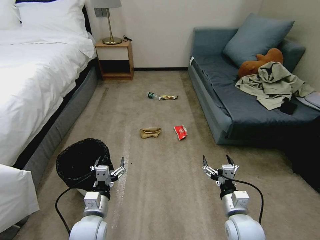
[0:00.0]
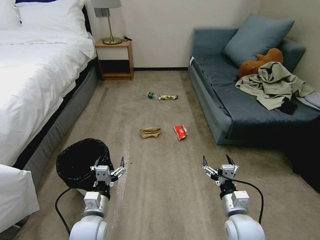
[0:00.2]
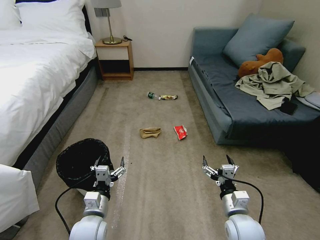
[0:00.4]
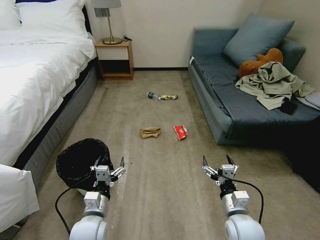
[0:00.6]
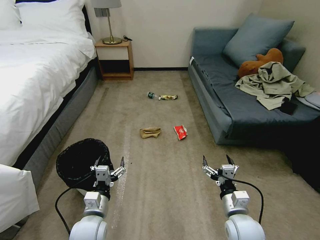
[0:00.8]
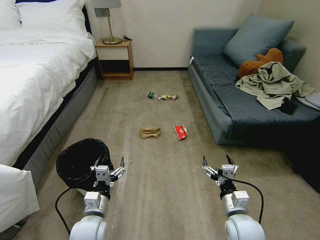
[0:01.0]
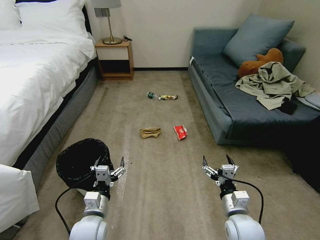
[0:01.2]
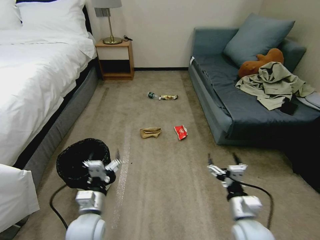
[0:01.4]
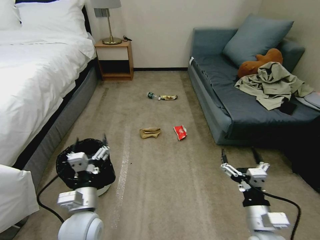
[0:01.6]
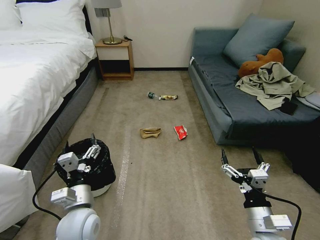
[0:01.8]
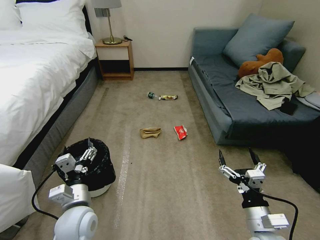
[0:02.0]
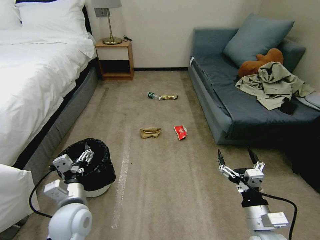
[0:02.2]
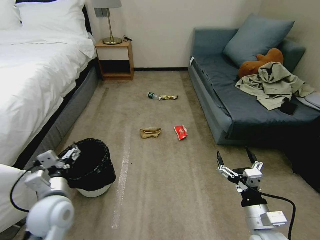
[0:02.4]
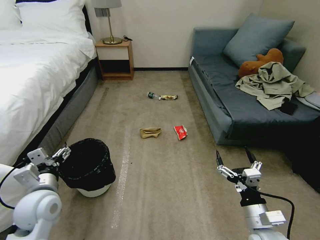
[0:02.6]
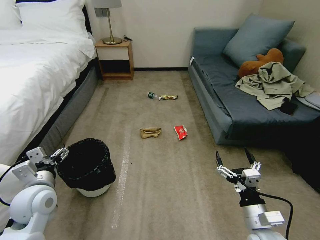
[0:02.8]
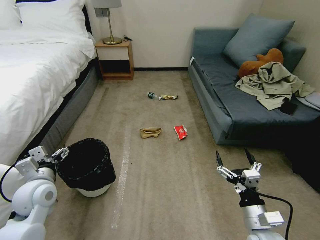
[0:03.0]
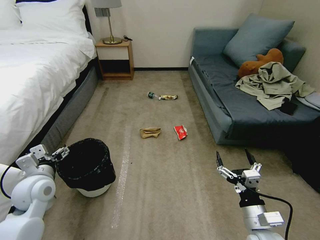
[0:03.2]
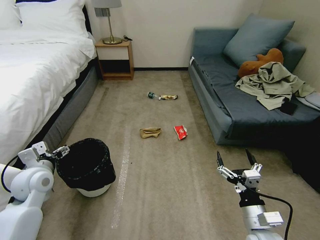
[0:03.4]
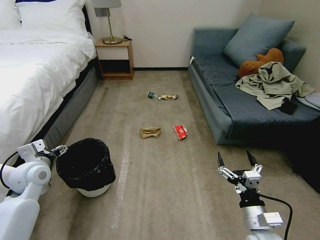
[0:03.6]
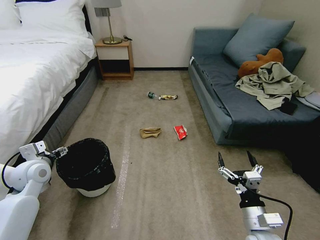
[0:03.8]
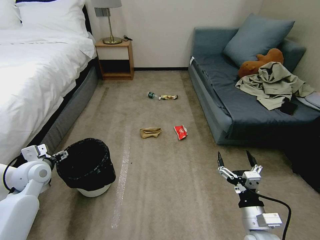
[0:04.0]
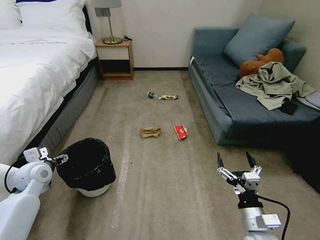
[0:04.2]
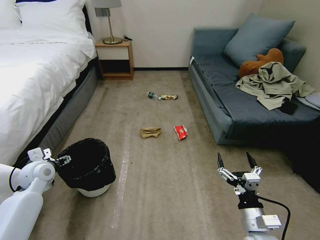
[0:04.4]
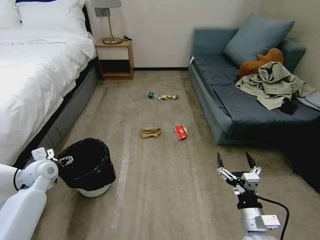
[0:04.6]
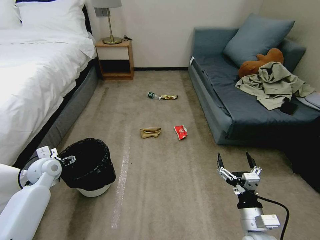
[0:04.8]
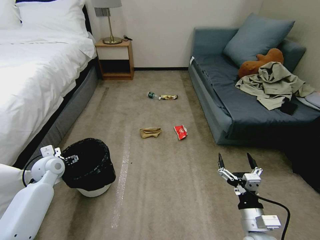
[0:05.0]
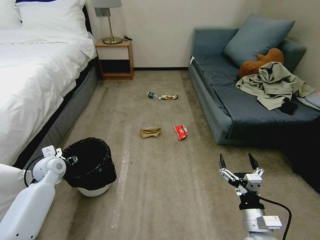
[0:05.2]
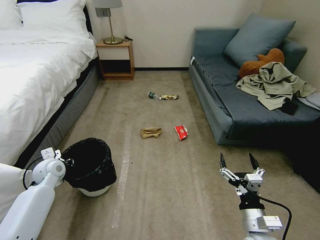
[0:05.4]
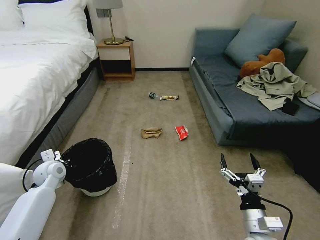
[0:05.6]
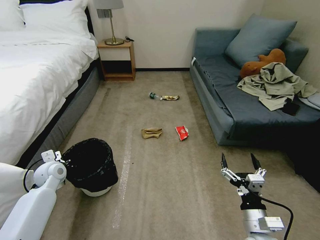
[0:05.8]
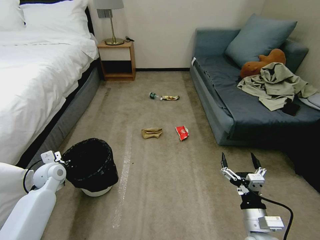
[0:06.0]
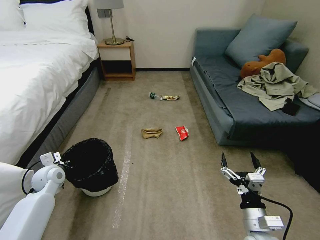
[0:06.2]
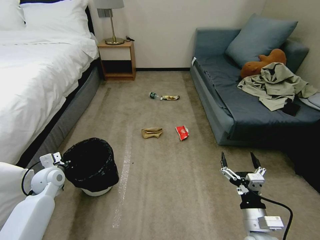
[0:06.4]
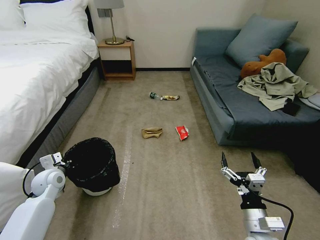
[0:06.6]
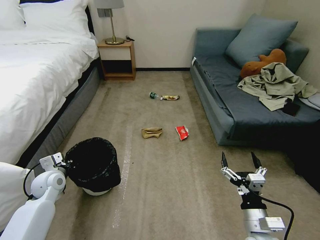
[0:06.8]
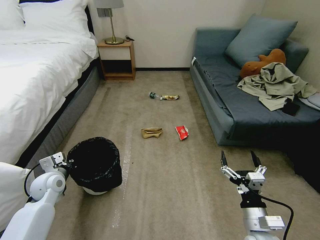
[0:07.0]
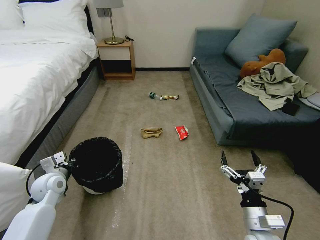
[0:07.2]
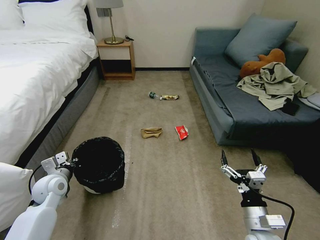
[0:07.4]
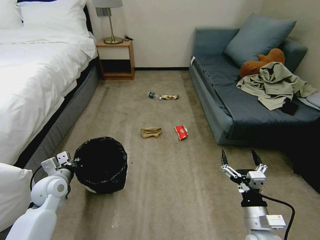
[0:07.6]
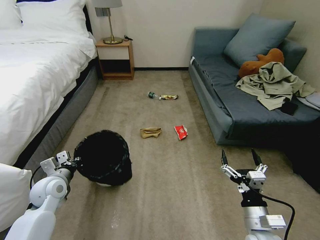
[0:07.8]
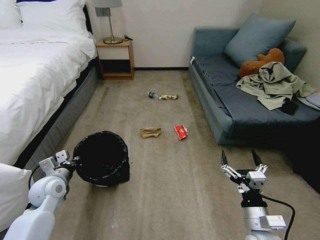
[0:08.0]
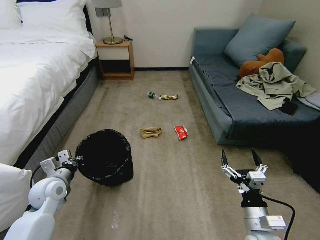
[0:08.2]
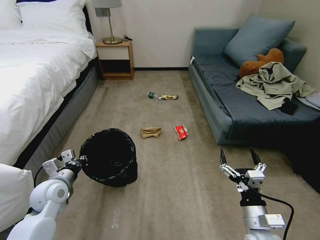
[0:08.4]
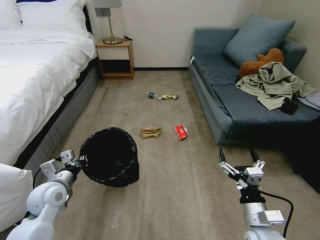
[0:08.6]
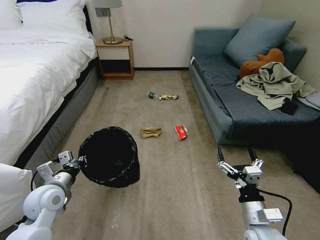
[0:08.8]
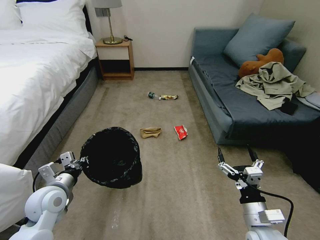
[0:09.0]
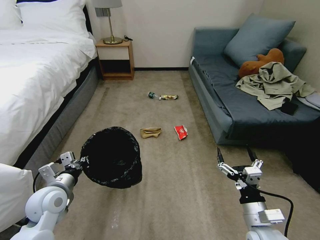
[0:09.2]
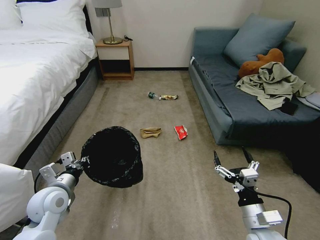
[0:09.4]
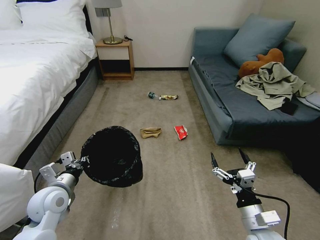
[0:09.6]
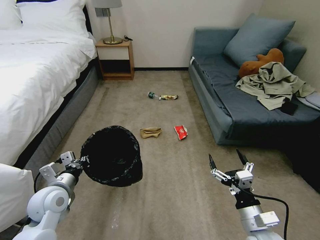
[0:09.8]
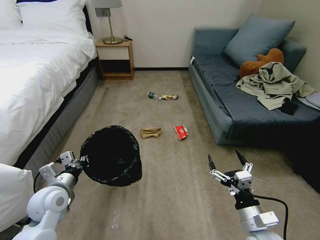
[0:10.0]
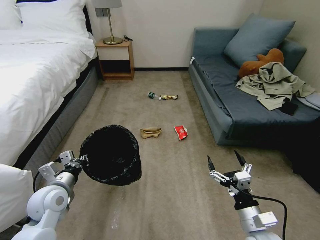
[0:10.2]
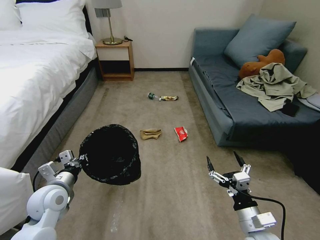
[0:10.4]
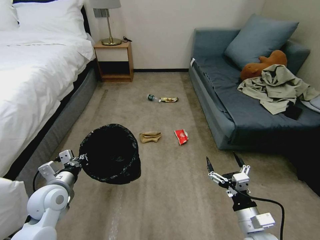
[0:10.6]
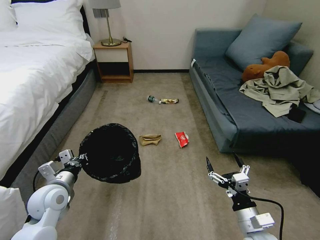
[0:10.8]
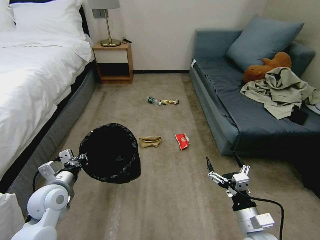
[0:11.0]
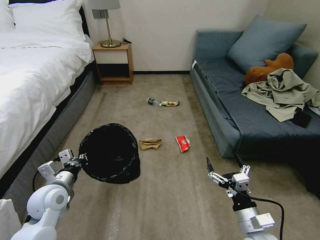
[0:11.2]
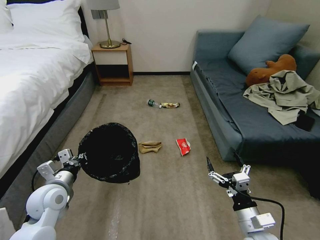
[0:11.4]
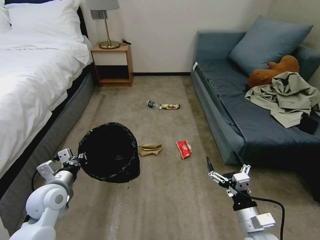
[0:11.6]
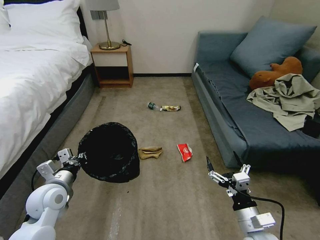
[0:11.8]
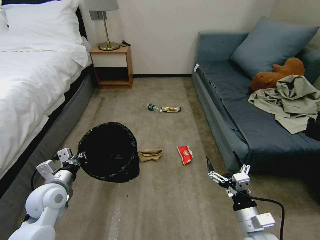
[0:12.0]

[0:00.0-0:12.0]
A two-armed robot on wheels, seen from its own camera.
Task of the whole recording: Pick up the trash bin, then pick up the garbage on the floor and place it into the trash bin.
0:01.6 to 0:03.0: The left gripper moves to the left and forward, about 15 cm.
0:03.0 to 0:04.4: The left gripper heads forward and to the left, covering some 10 cm.
0:04.4 to 0:06.0: The left gripper closes its fingers.
0:06.0 to 0:07.6: The left gripper shifts some 5 cm backward.
0:07.6 to 0:09.0: The left gripper shifts roughly 5 cm backward.
0:09.0 to 0:10.4: The grippers move only a little.

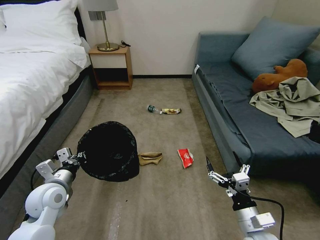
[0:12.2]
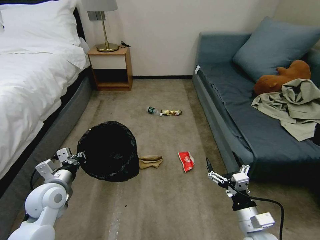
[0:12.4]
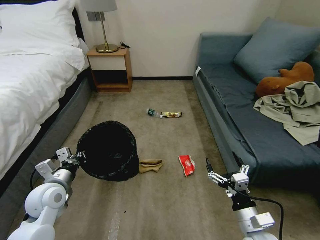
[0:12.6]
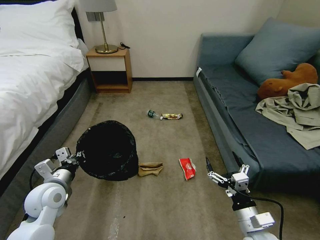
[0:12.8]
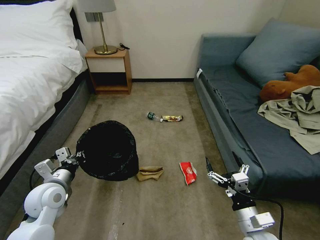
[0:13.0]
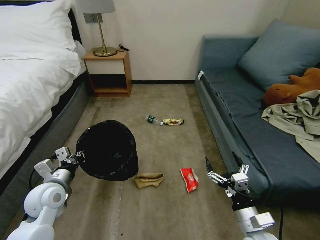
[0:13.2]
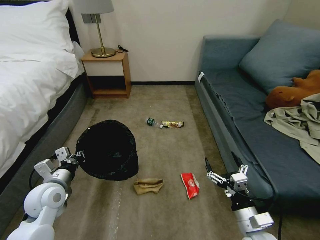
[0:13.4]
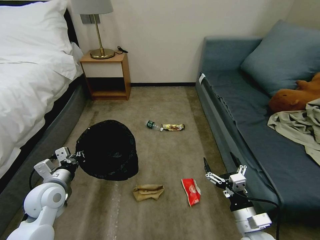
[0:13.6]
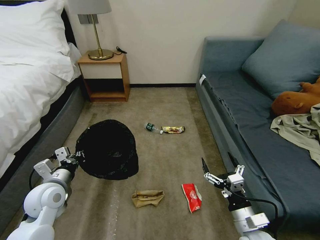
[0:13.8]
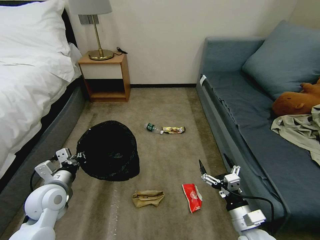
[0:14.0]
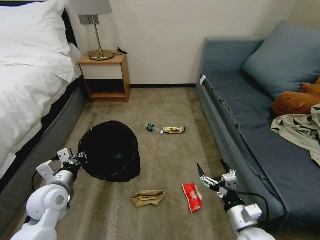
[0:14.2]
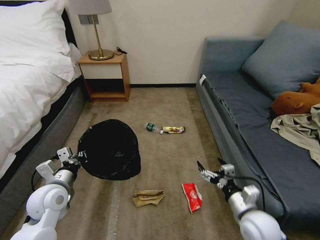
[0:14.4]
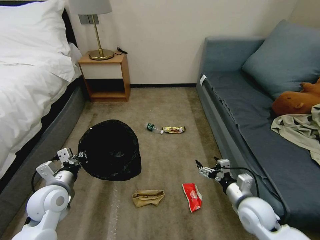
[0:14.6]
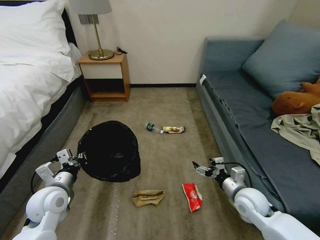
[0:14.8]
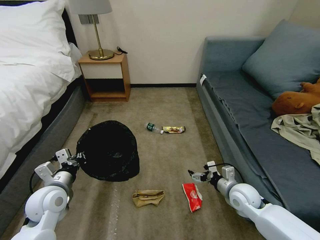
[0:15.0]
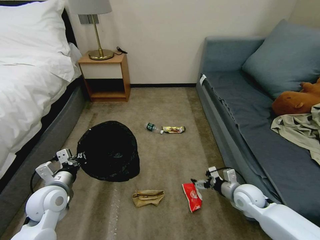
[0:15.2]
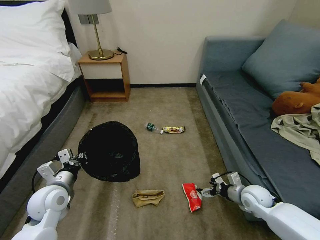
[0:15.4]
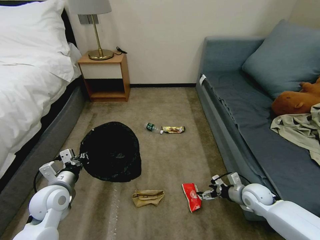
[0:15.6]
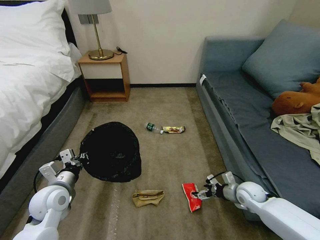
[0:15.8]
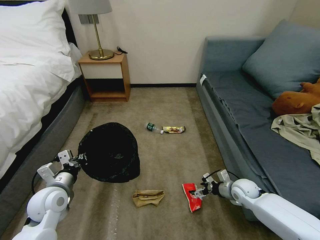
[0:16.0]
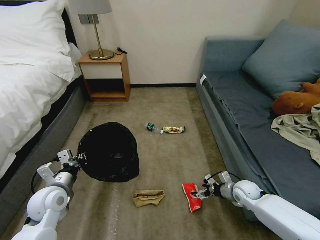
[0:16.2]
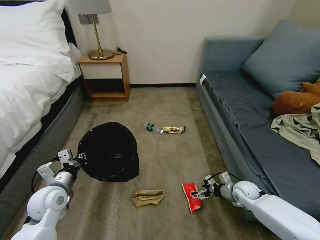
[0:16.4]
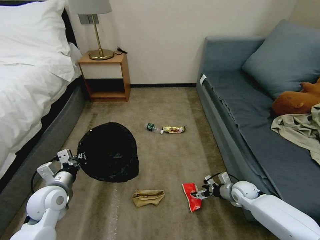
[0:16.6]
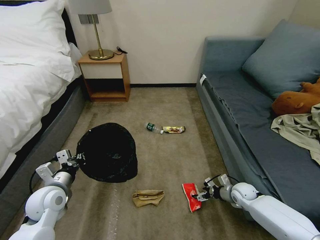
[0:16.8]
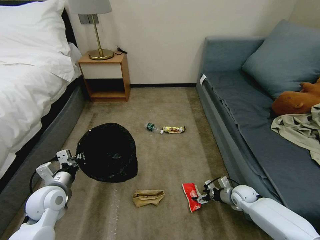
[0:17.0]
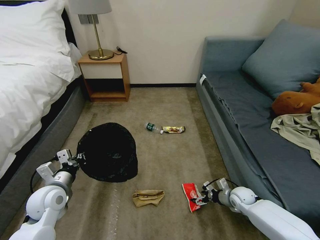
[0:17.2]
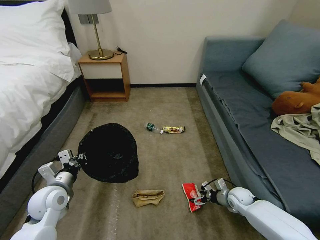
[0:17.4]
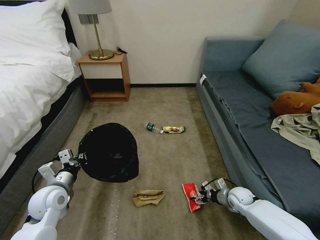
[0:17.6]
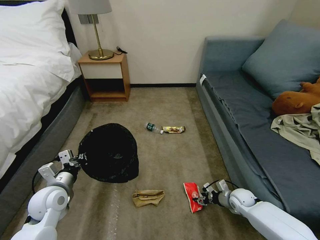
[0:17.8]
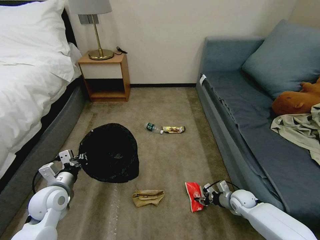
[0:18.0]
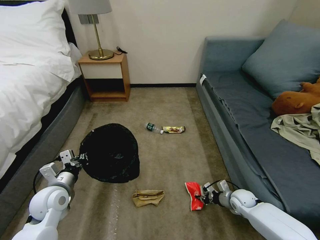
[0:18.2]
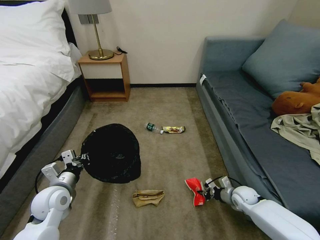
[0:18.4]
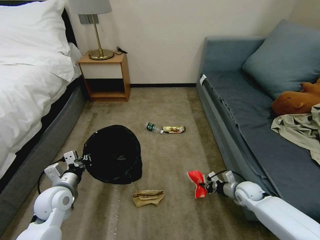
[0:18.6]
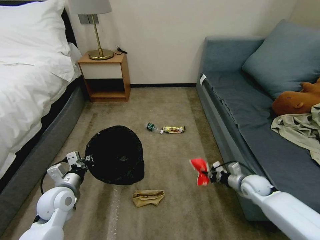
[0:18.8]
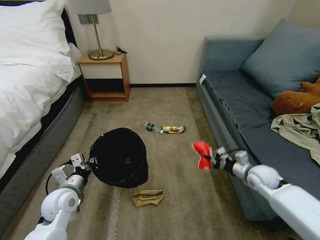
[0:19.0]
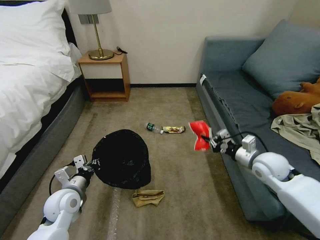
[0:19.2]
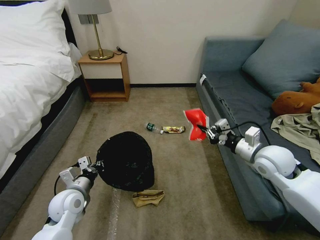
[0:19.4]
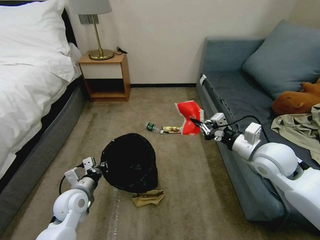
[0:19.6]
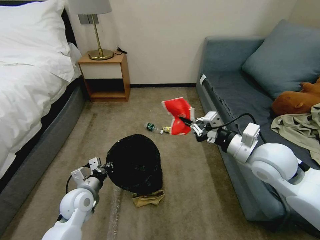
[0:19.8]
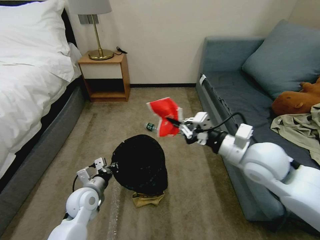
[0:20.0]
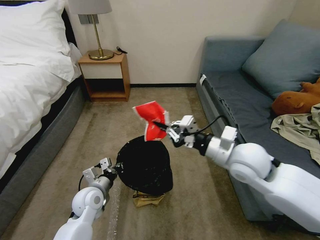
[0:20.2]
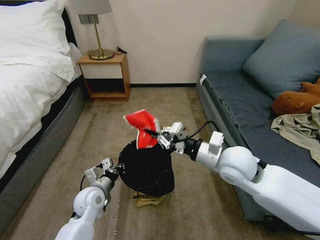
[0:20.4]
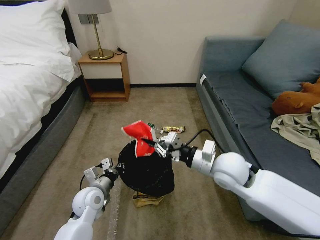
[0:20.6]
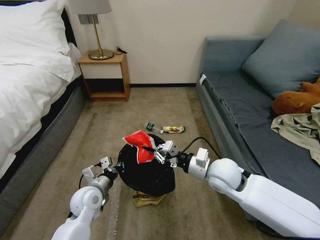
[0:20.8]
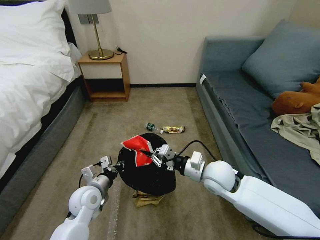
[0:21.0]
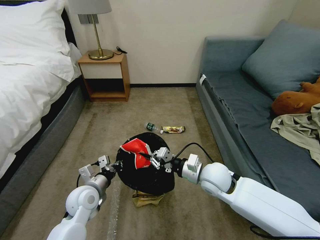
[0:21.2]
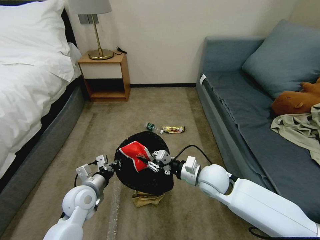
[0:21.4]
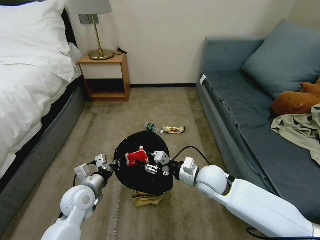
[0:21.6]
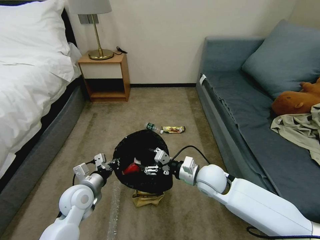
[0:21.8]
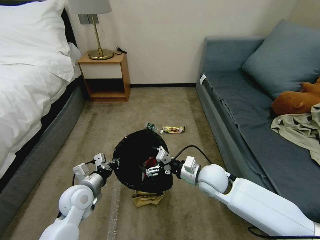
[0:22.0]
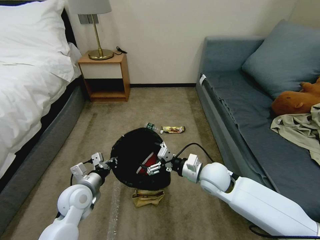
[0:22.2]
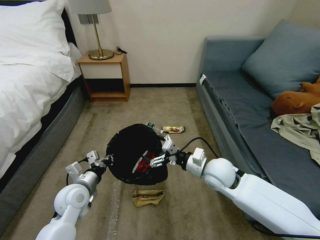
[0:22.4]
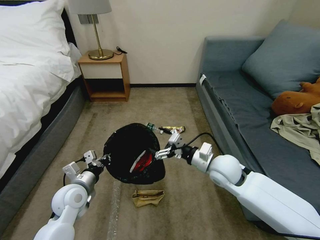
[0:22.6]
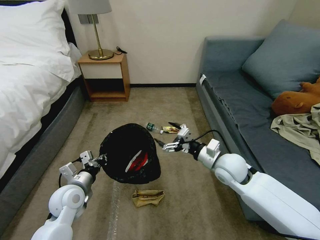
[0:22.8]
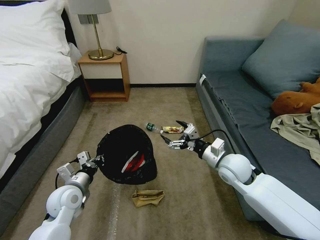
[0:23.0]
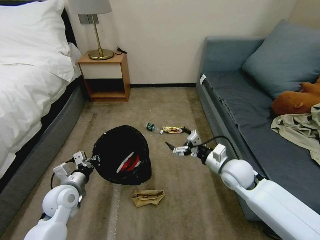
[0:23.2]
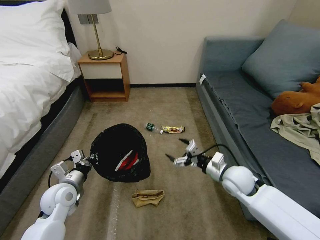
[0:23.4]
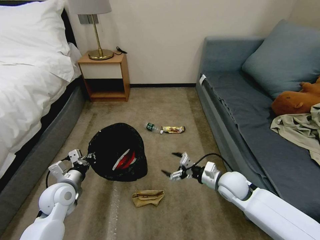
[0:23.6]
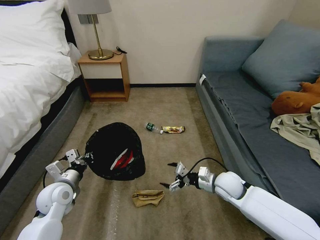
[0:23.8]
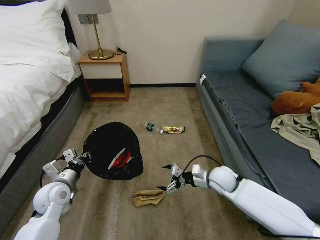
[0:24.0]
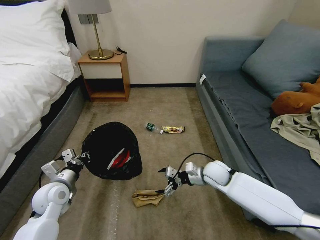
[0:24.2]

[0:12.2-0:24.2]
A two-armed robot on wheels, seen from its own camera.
Task of the whole recording: Pick up the trash bin, then pick up the garbage on the floor and place it into the trash bin.
0:13.8 to 0:15.2: The right gripper is displaced forward by roughly 15 cm.
0:15.2 to 0:16.6: The right gripper is displaced downward by approximately 10 cm.
0:16.6 to 0:18.2: The right gripper closes its fingers.
0:18.2 to 0:19.8: The right gripper travels upward by approximately 35 cm, while the left gripper travels to the right by roughly 5 cm.
0:19.8 to 0:21.2: The right gripper goes some 15 cm downward and to the left.
0:21.2 to 0:22.6: The right gripper opens up.
0:22.6 to 0:24.2: The left gripper heads to the left, covering roughly 5 cm; the right gripper heads downward, covering some 10 cm.
